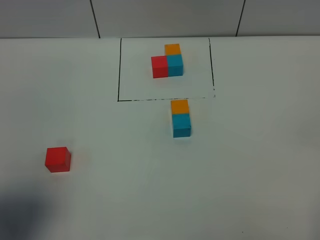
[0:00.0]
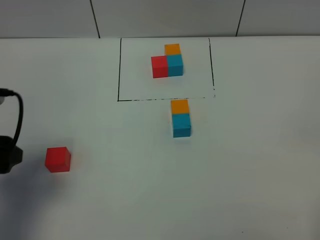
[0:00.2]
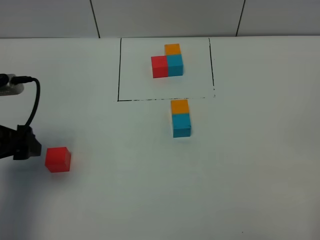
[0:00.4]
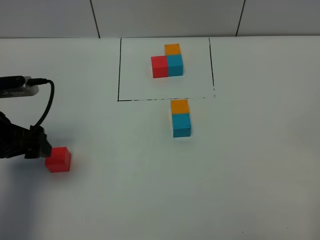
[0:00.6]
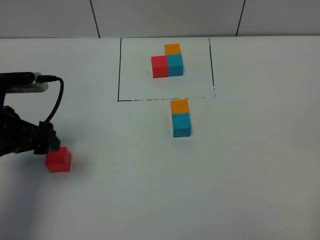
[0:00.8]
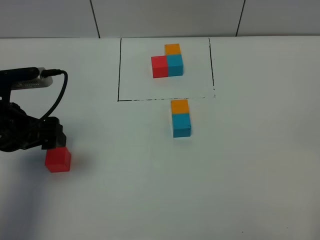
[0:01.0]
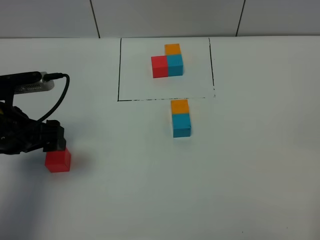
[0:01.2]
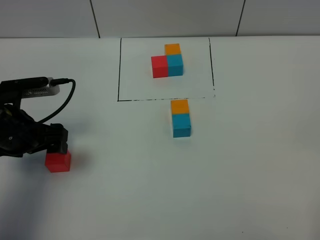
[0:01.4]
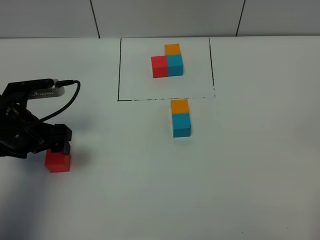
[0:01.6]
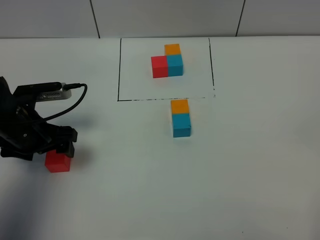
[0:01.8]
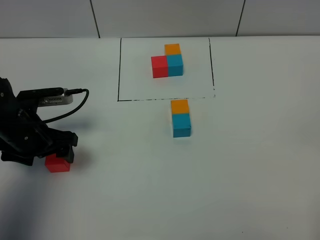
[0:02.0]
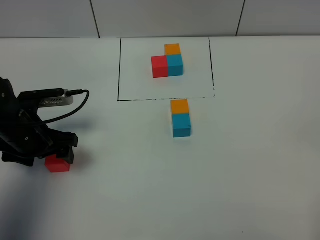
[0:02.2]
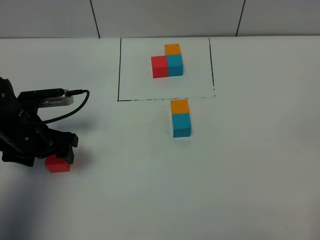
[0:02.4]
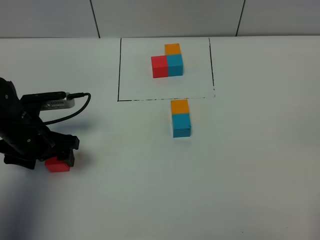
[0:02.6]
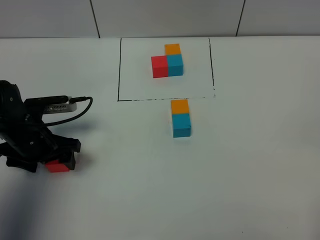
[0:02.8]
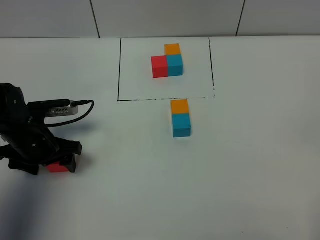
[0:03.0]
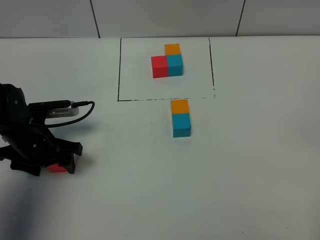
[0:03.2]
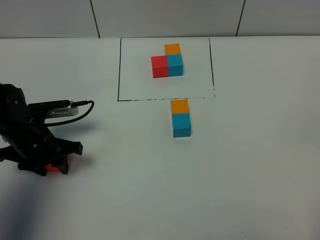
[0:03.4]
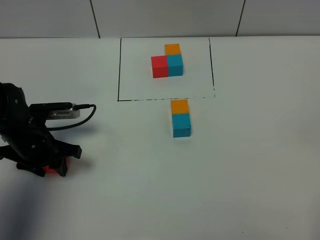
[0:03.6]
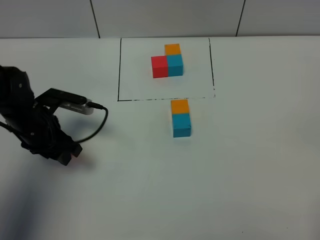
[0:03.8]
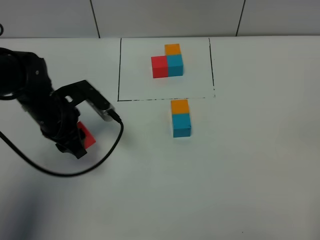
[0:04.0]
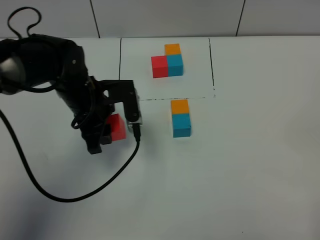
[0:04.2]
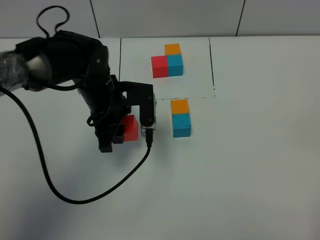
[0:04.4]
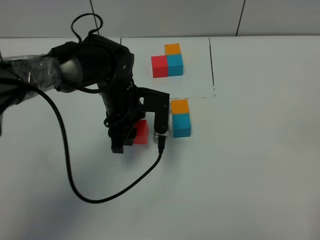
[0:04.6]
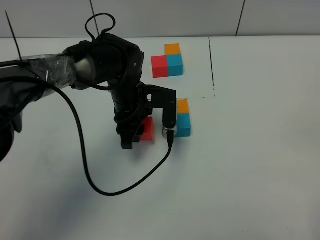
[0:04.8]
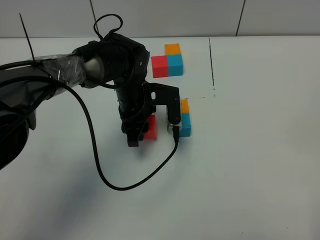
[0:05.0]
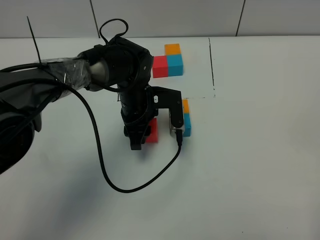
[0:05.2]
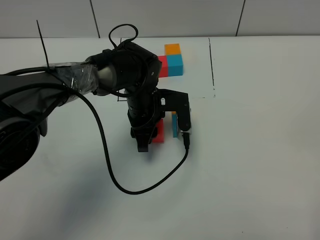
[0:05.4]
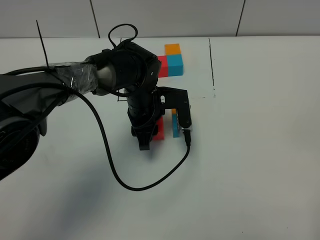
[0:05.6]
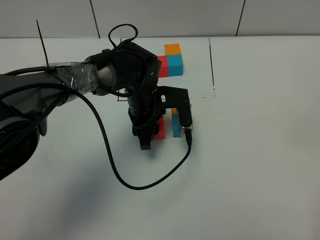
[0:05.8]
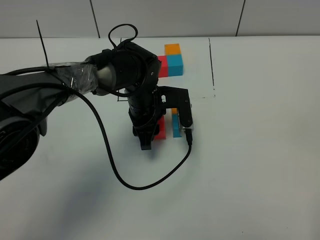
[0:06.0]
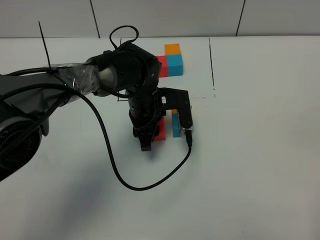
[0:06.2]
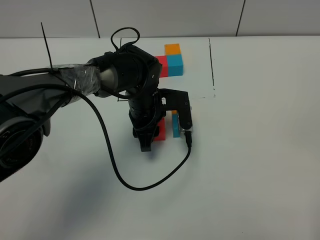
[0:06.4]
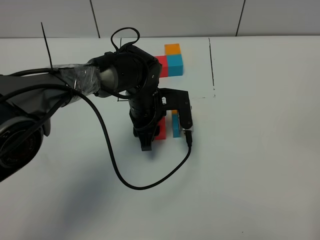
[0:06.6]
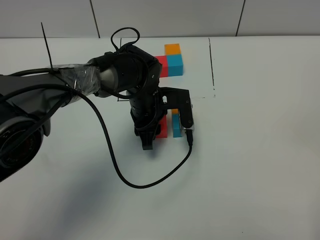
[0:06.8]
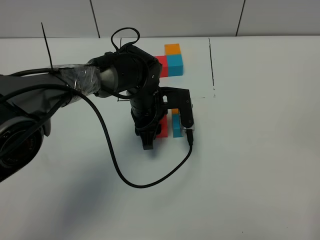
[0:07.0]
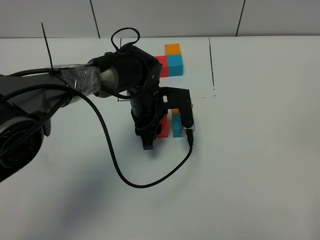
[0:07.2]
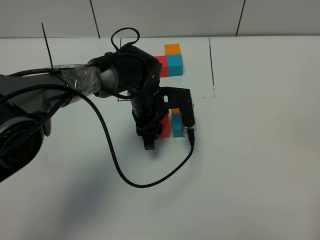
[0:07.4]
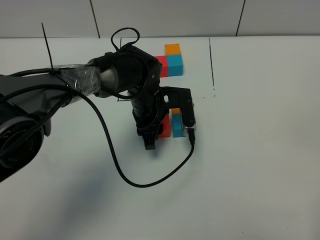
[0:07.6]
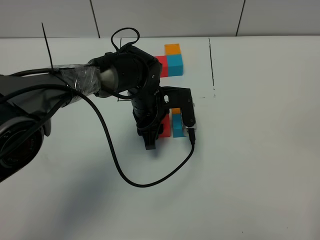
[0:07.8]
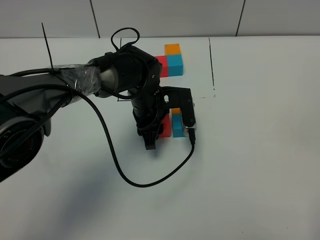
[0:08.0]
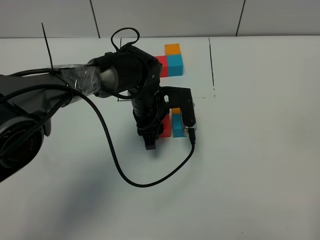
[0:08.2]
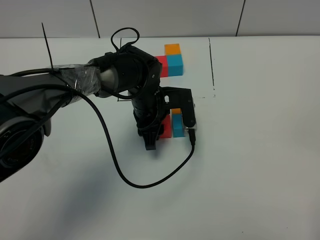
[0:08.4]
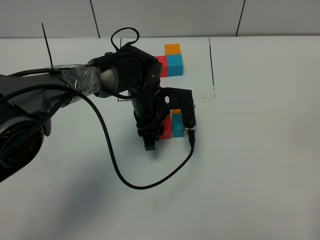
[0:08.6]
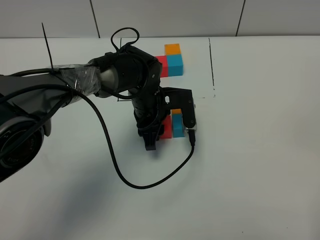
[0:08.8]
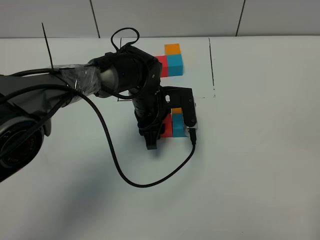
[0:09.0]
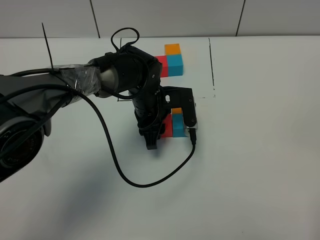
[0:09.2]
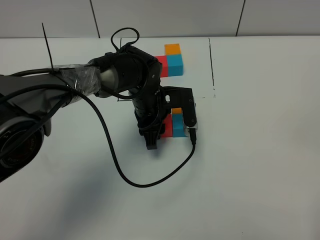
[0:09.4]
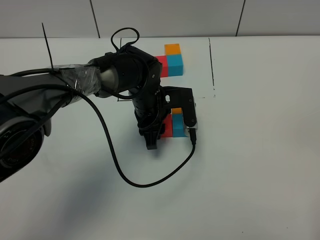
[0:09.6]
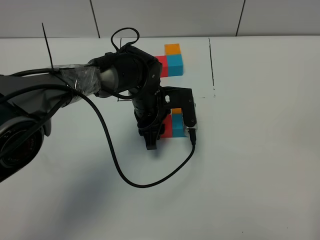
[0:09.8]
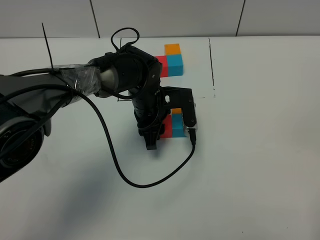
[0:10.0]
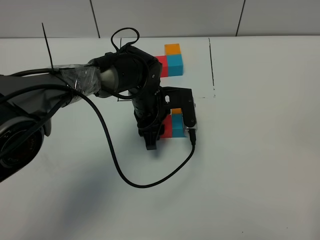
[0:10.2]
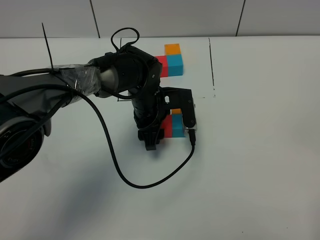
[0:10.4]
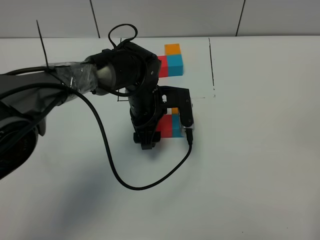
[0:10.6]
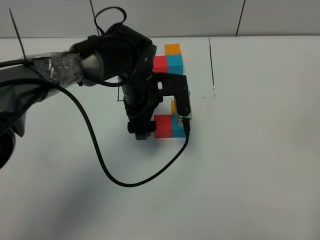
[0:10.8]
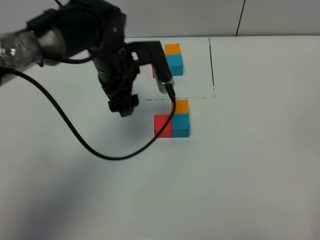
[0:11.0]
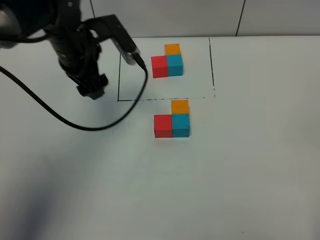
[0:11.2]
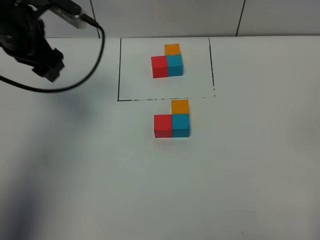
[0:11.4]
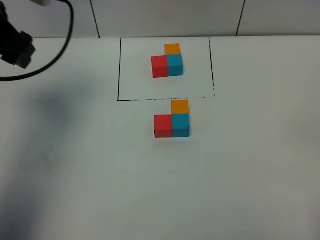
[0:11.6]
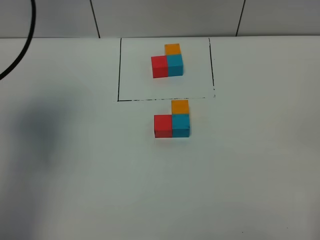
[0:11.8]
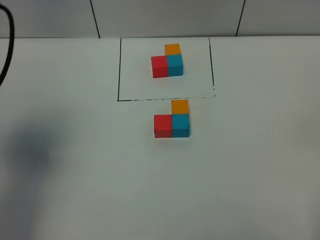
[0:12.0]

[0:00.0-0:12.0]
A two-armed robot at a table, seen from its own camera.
Task of the whole recording: According to the building block template in front, assemble the scattered blocks together.
Step, 0:00.0 to 0:10.4: Put the red build block on the left of the blue build block.
0:00.0 to 0:01.6: The left gripper is displaced forward and downward by some 20 cm.
0:01.6 to 0:03.0: The left gripper heads downward, covering about 5 cm.
0:03.0 to 0:04.4: The left gripper is displaced to the right by approximately 15 cm, and closes up.
0:04.4 to 0:06.0: The left gripper travels to the right by some 5 cm.
0:06.0 to 0:09.0: Both grippers stay about where they are.
0:09.0 to 0:10.4: The left gripper opens its fingers.
0:10.4 to 0:12.0: The left gripper shifts approximately 40 cm upward, to the left and backward.

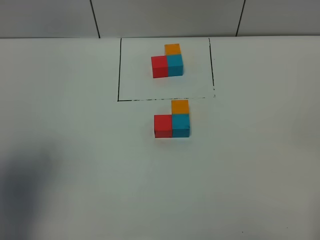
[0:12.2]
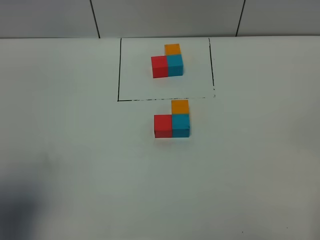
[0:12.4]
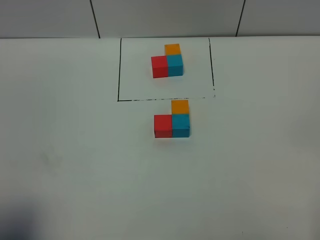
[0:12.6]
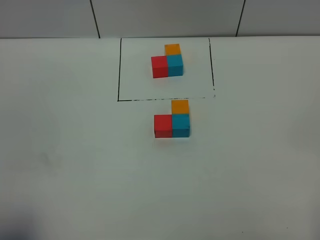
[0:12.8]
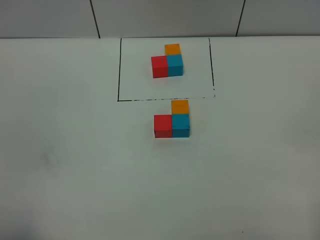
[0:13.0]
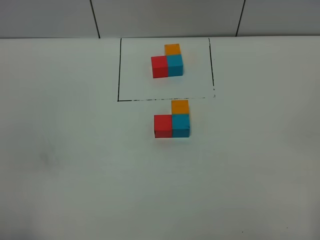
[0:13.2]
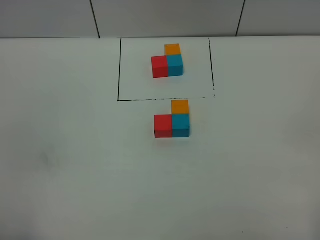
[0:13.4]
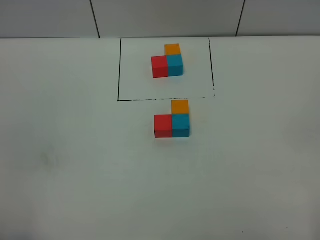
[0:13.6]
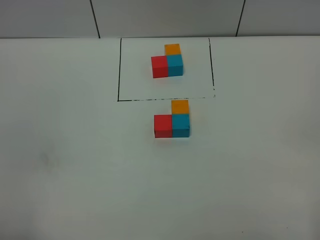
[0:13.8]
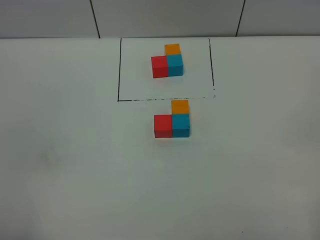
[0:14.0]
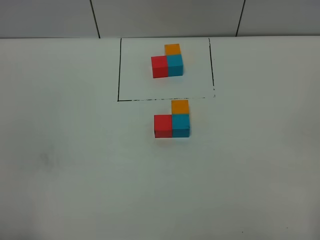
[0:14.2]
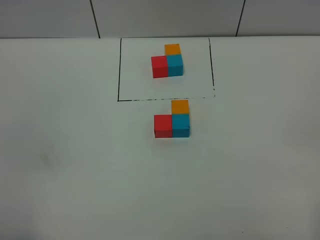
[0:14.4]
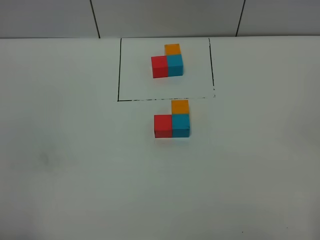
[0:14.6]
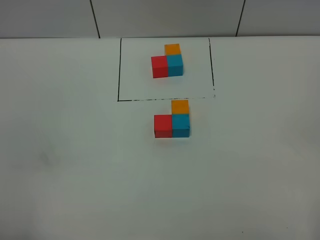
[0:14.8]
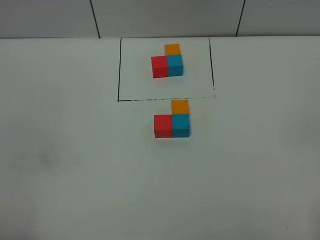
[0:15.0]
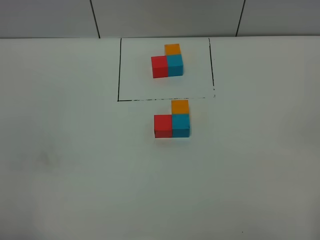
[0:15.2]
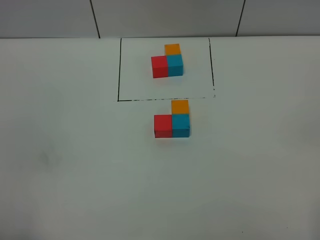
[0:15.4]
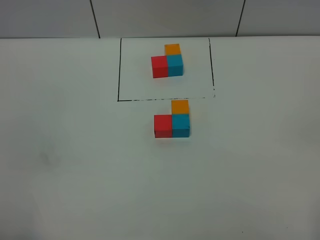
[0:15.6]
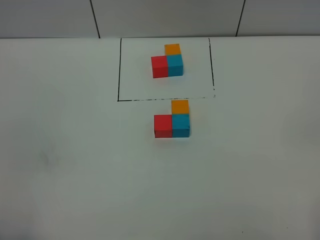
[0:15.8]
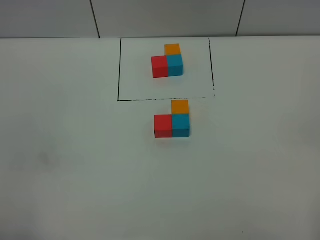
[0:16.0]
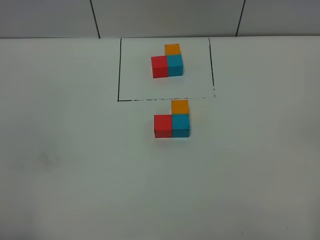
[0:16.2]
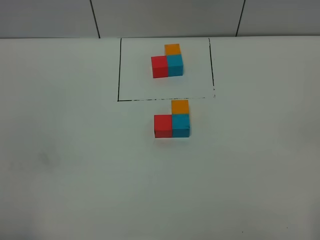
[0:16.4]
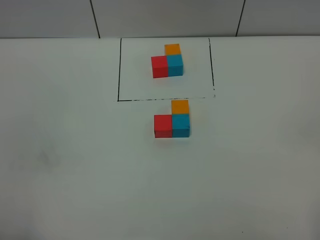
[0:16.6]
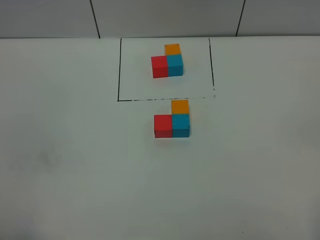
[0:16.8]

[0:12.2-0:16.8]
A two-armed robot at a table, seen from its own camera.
Task of the whole recording: According to the building block template in front, assemble the scattered blocks together.
0:12.2 to 0:13.8: The left gripper heads backward and downward, covering some 20 cm.
0:13.8 to 0:16.8: Neither gripper changes place.
